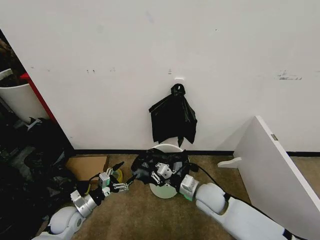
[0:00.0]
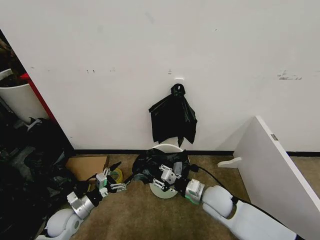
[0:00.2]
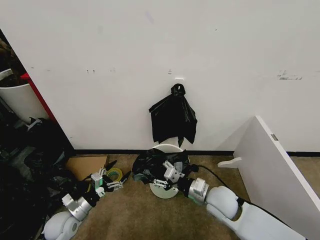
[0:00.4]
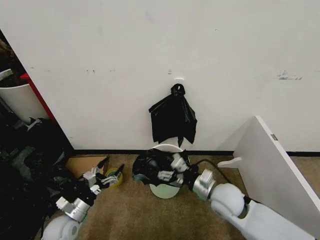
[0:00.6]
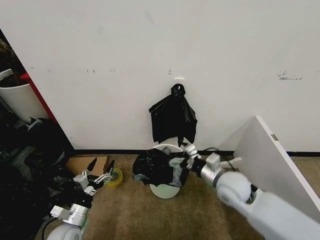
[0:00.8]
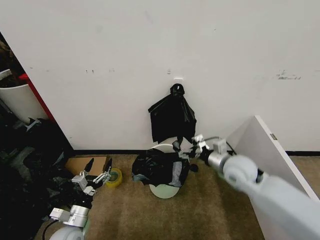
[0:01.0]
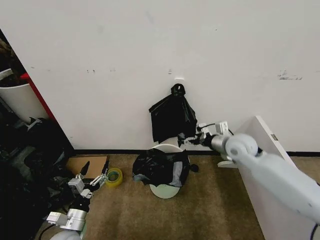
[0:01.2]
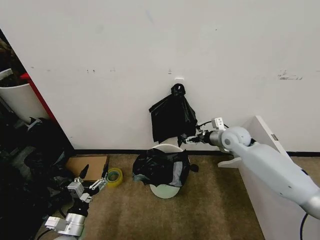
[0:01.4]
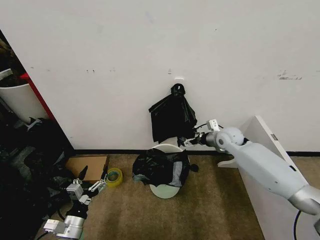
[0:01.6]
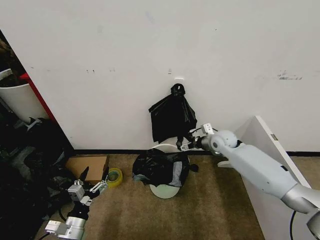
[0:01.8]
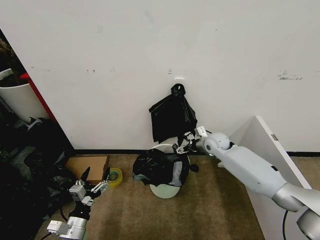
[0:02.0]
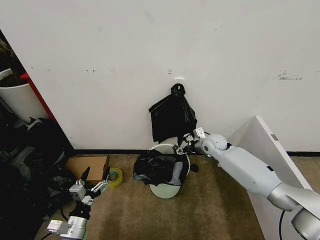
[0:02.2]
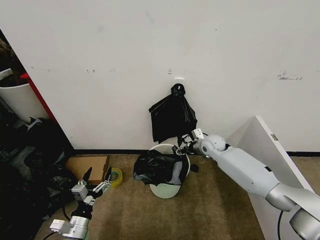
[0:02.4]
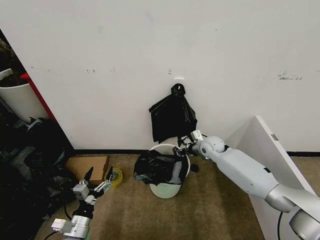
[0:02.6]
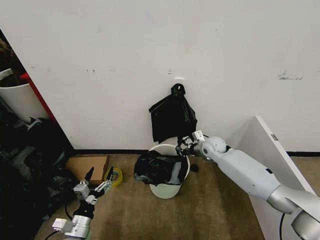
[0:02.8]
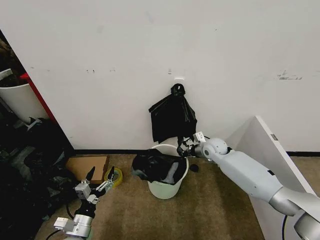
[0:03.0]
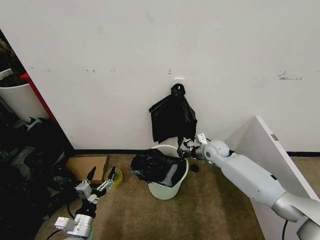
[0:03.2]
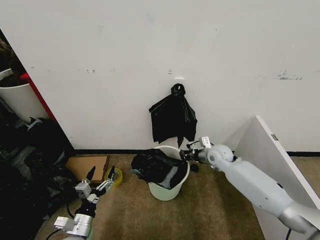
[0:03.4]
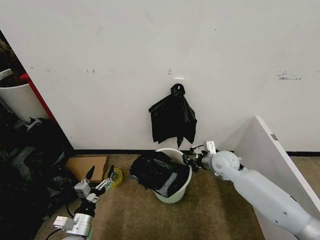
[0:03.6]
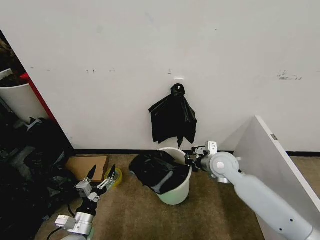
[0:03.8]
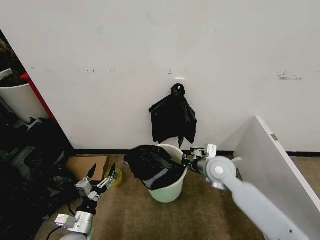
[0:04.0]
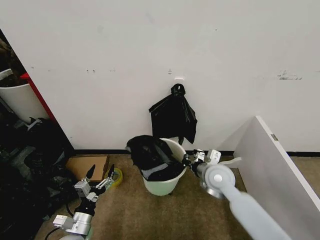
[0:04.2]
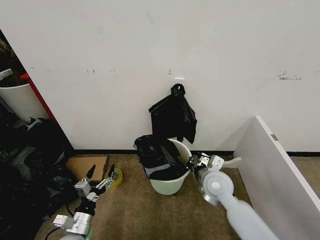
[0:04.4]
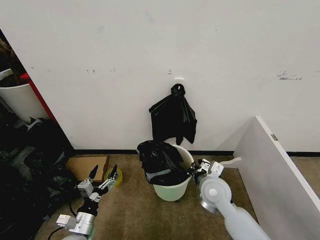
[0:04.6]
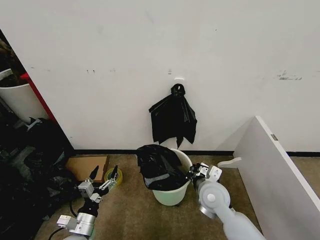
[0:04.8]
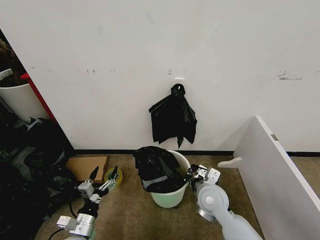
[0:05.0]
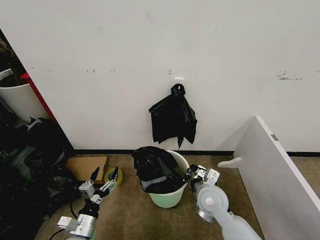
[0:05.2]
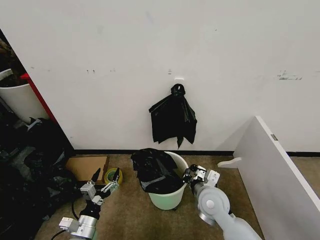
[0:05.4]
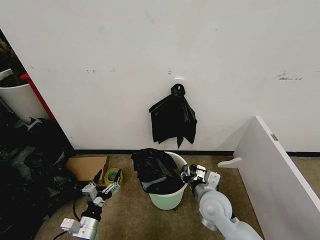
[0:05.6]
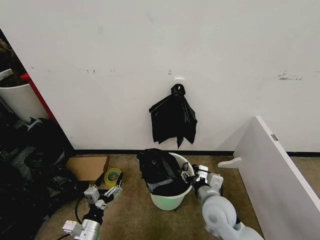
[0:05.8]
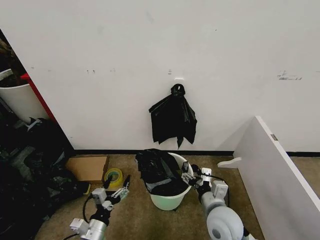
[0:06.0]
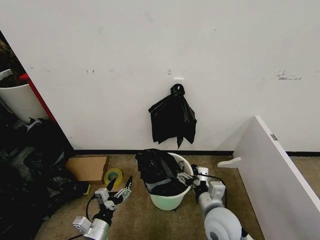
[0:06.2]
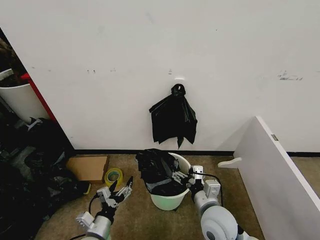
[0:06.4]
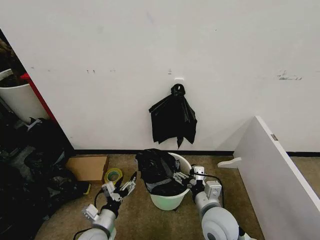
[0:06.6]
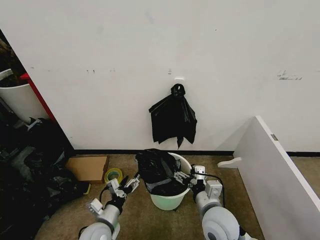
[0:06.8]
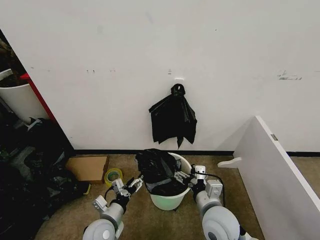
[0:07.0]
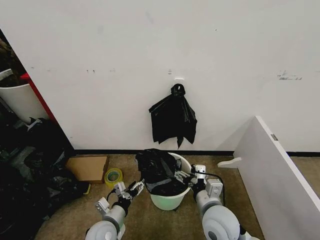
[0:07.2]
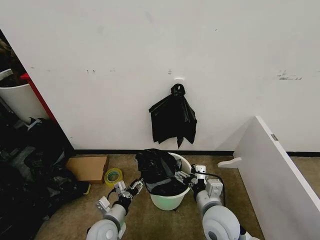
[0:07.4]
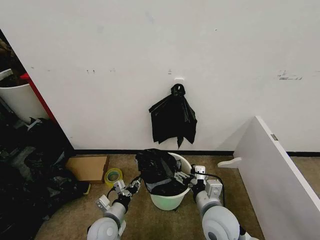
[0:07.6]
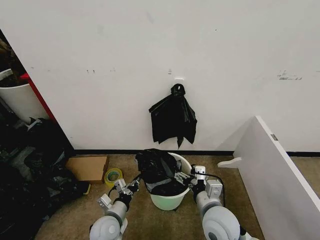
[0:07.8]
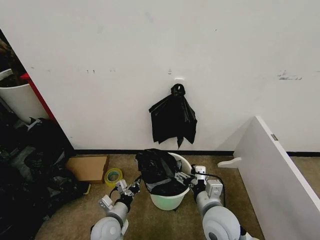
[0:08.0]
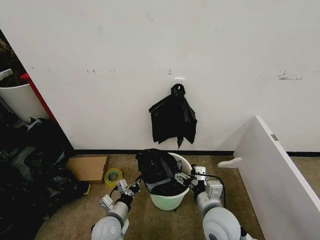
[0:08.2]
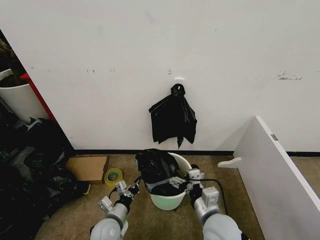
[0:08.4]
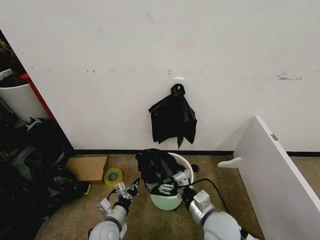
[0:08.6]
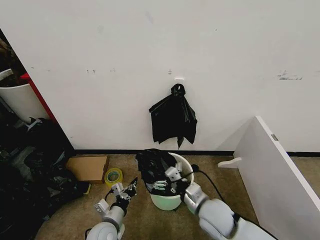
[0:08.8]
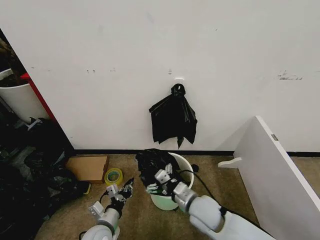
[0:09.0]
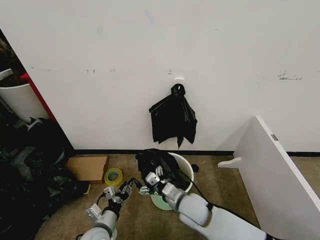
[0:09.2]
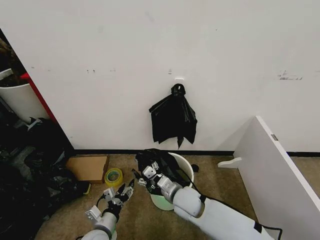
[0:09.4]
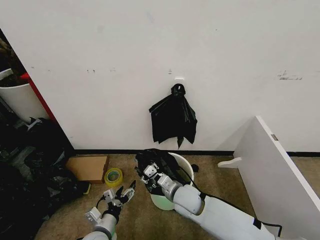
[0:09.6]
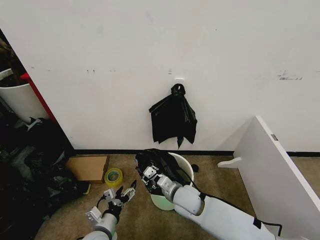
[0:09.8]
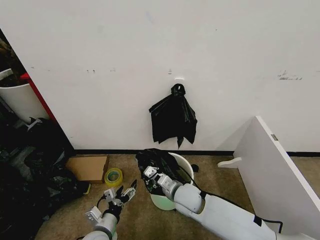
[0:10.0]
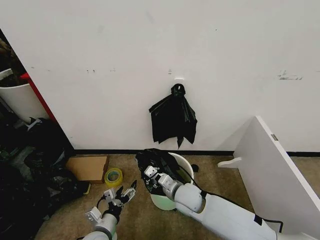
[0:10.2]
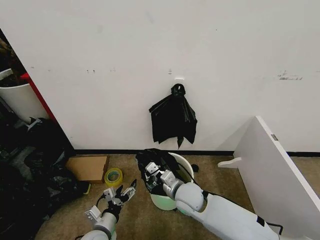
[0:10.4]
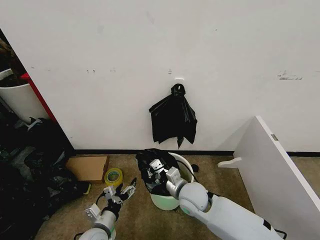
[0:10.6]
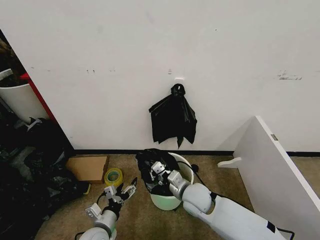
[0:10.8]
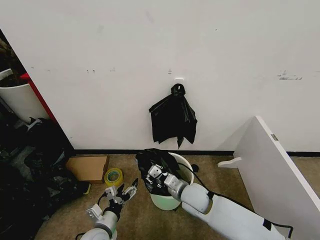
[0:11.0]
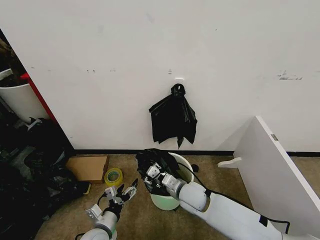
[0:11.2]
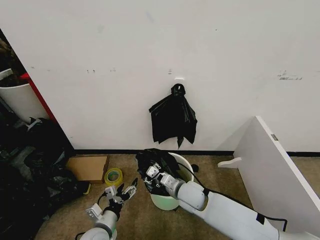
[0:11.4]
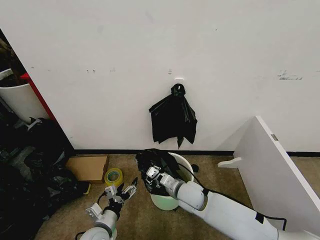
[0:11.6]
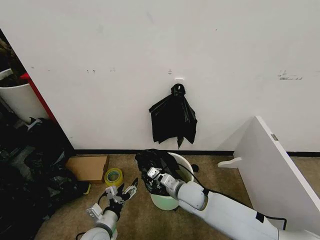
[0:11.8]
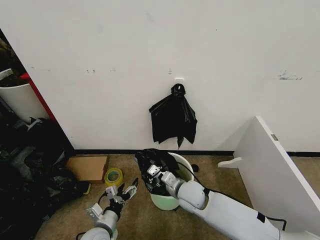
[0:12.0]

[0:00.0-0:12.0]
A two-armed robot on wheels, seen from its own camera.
Task of the whole recording: Place the garbage bag over the trash bin.
0:00.0 to 0:01.6: The right gripper heads forward, to the right and upward, covering approximately 25 cm, and opens. Meanwhile the left gripper shifts about 10 cm backward.
0:01.6 to 0:03.0: The right gripper moves downward, about 5 cm, and closes up.
0:03.0 to 0:04.4: The right gripper goes roughly 15 cm backward.
0:04.4 to 0:06.0: The right gripper shifts approximately 10 cm backward, and opens up.
0:06.0 to 0:07.6: The left gripper moves forward, approximately 5 cm, and closes.
0:07.6 to 0:09.0: The right gripper shifts by some 5 cm.
0:09.0 to 0:10.4: The left gripper opens its fingers. The right gripper moves about 5 cm, and closes up.
0:10.4 to 0:12.0: The right gripper opens and closes again.

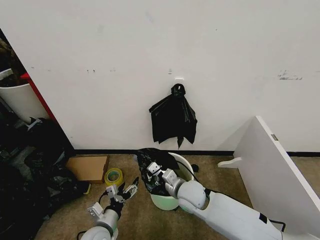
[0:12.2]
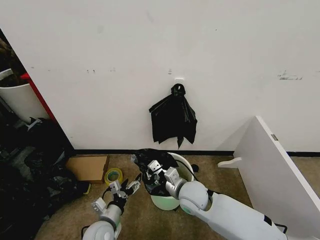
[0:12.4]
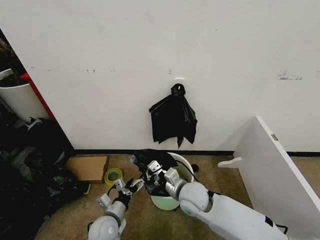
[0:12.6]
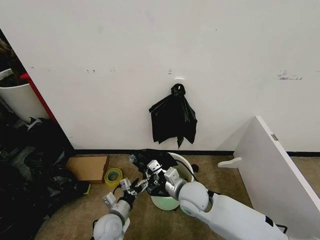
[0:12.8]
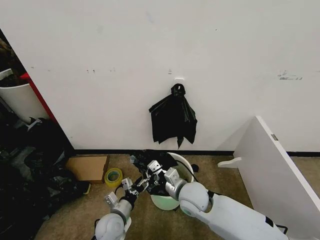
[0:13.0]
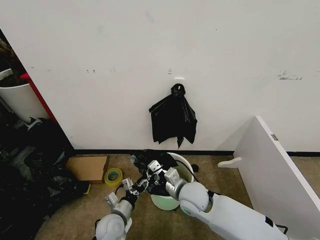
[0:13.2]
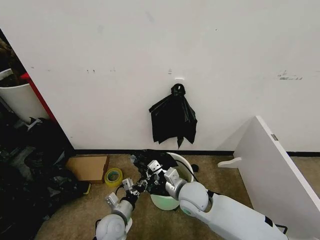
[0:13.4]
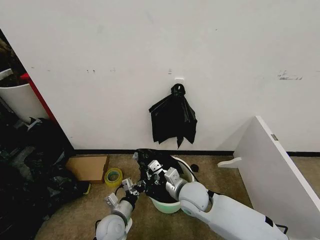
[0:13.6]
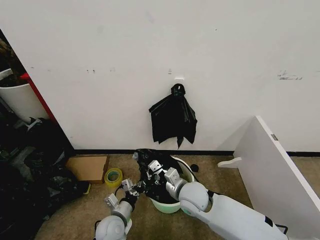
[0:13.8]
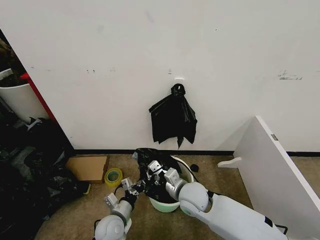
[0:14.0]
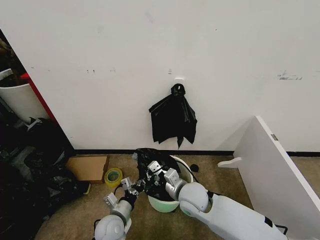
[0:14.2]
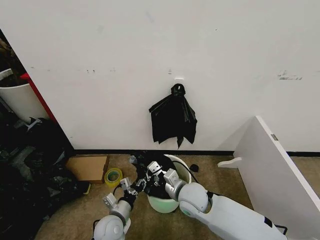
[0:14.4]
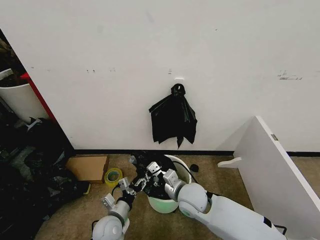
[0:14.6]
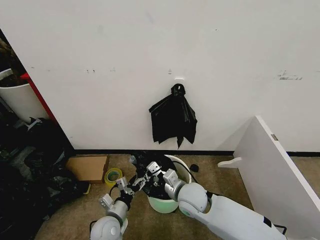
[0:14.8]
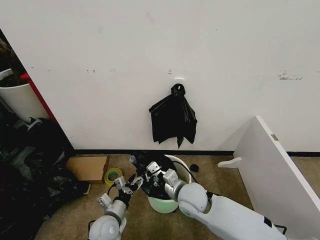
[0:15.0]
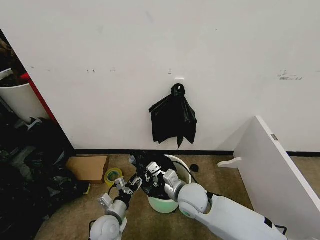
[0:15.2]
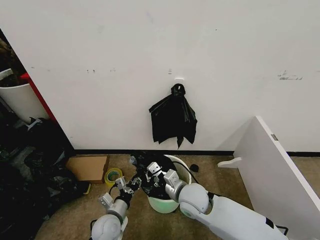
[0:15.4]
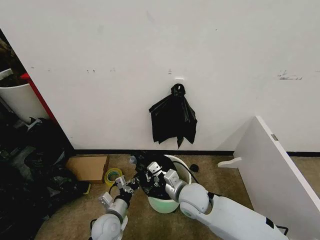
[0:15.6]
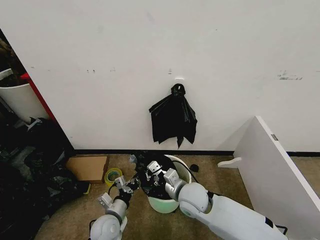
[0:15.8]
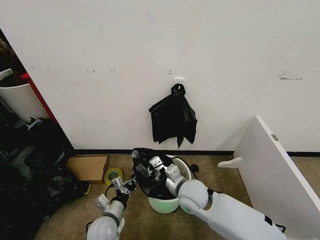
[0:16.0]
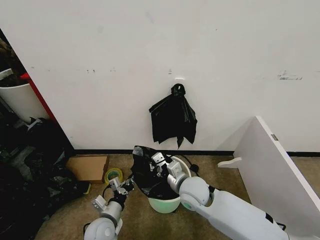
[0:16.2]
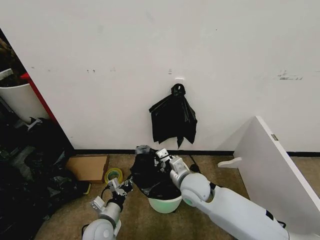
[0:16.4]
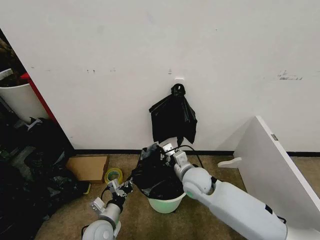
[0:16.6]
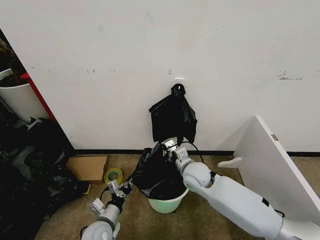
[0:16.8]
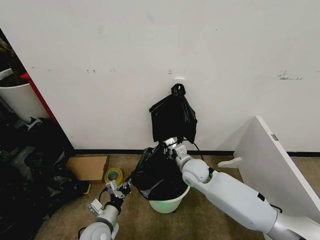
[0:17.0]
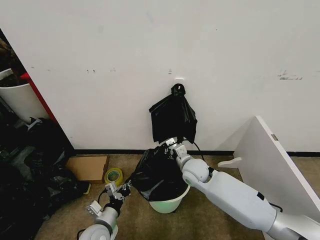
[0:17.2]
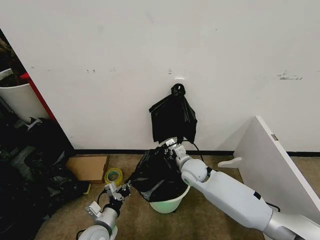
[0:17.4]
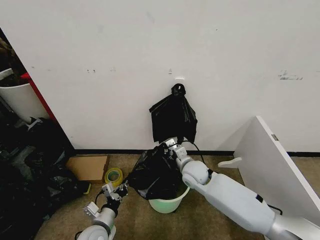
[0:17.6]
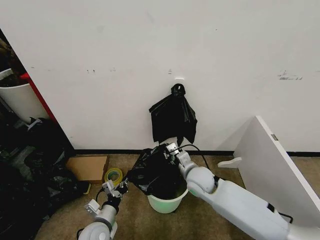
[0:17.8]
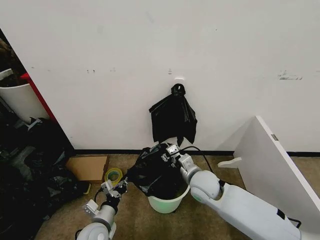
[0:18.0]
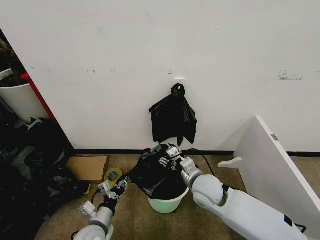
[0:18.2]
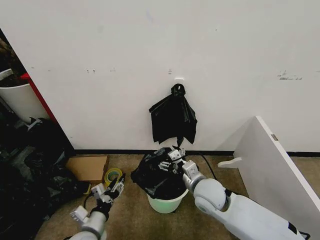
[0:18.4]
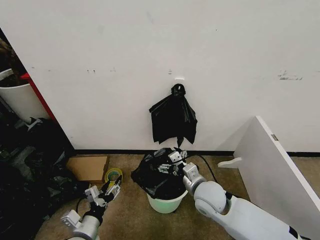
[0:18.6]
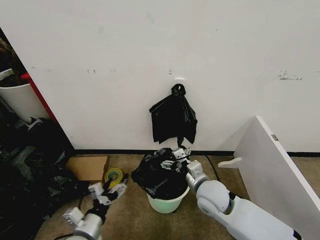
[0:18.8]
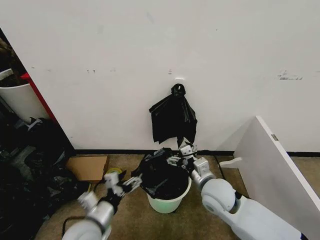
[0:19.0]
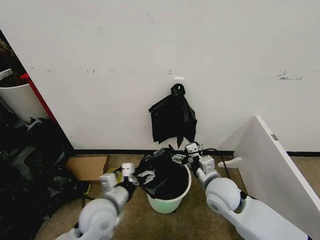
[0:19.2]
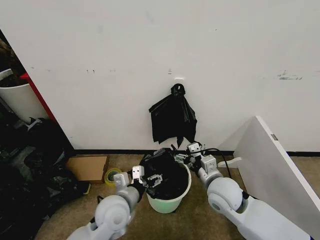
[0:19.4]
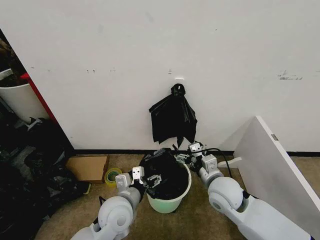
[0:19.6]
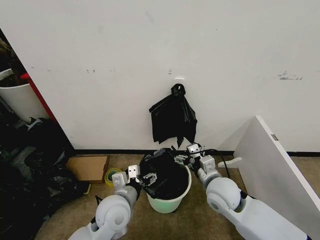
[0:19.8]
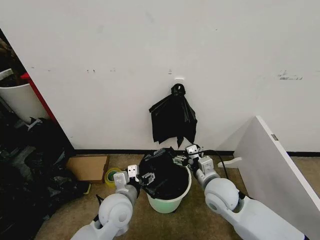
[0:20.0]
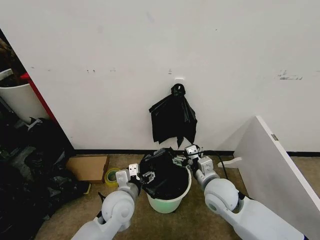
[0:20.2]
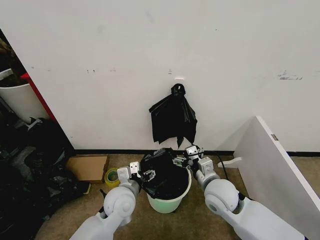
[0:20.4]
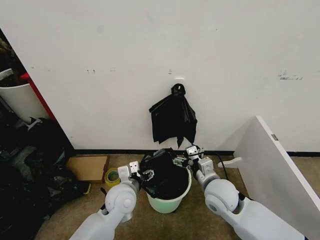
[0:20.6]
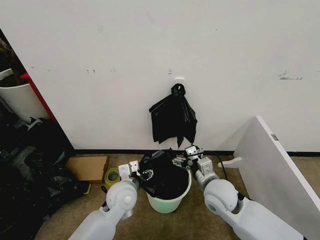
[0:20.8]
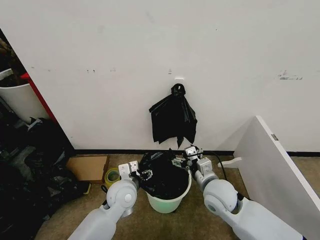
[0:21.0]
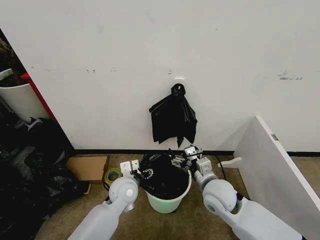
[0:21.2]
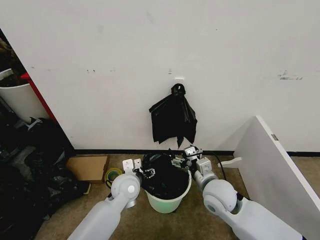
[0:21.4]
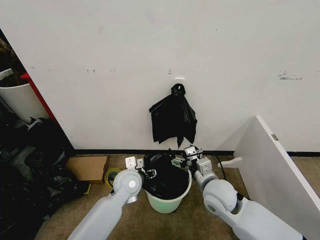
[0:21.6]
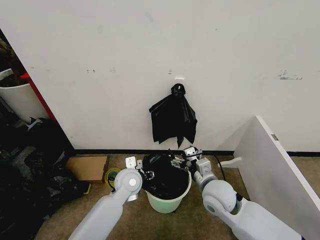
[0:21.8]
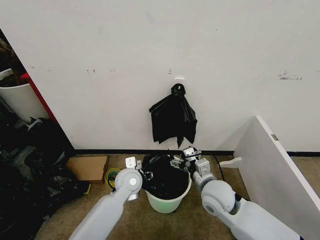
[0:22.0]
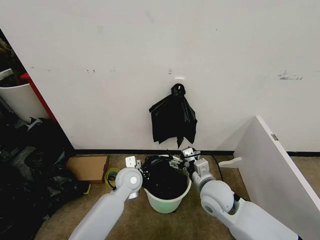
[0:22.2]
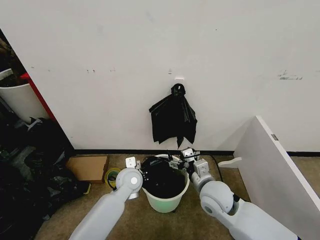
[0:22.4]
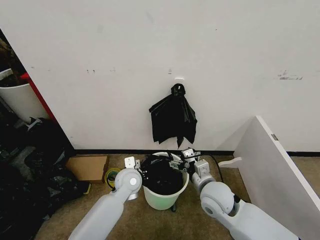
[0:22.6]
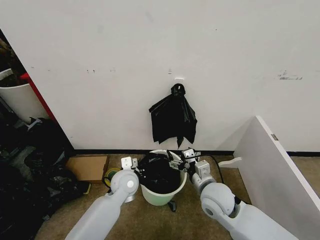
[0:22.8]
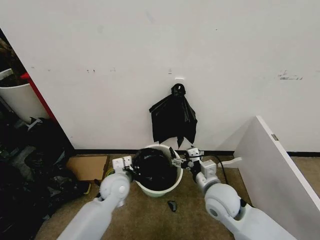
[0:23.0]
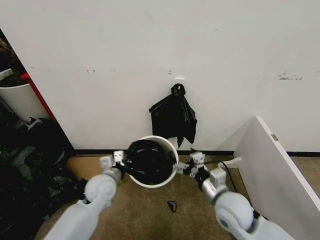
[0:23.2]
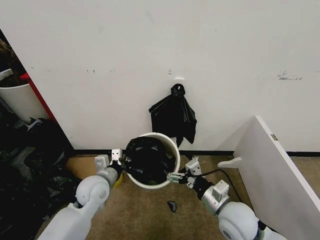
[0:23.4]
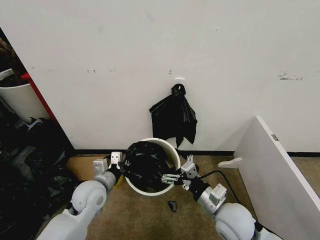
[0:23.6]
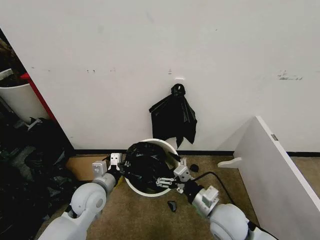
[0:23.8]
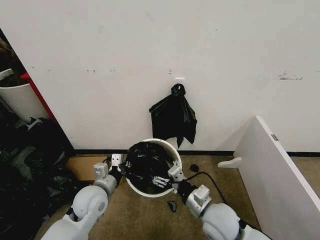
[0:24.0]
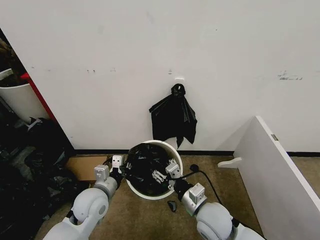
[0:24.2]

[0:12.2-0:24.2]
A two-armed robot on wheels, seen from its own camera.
Task of the whole recording: Place the garbage bag over the trash bin.
0:12.2 to 0:13.8: The left gripper ends up some 5 cm from where it was, and closes.
0:13.8 to 0:15.2: The left gripper opens its fingers.
0:15.2 to 0:16.6: The left gripper closes.
0:16.6 to 0:18.2: The left gripper opens its fingers. The right gripper reaches approximately 5 cm forward, then returns, and opens its fingers.
0:18.2 to 0:19.8: The right gripper opens up. Meanwhile the left gripper moves upward and to the right, roughly 15 cm, and opens.
0:19.8 to 0:21.2: The left gripper moves forward, about 10 cm.
0:21.2 to 0:22.6: The left gripper closes its fingers.
0:22.6 to 0:24.2: The right gripper is displaced backward by approximately 5 cm, and closes up. Meanwhile the left gripper heads to the left and backward, covering some 15 cm.
